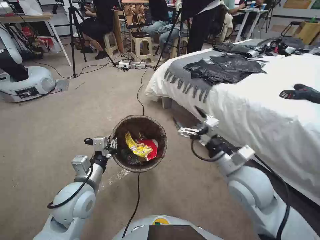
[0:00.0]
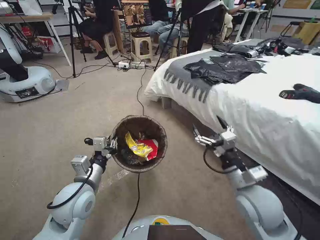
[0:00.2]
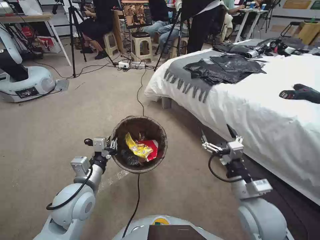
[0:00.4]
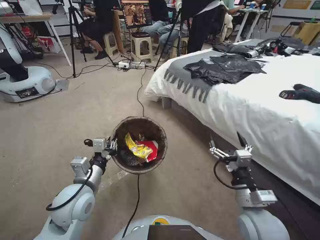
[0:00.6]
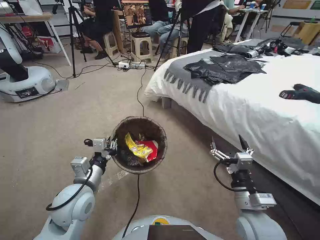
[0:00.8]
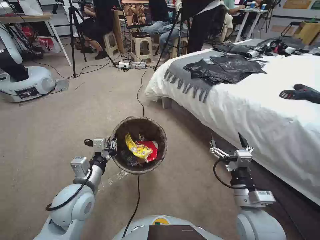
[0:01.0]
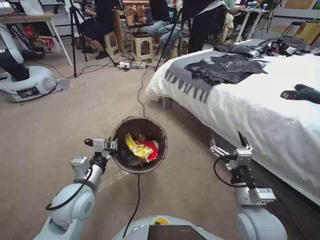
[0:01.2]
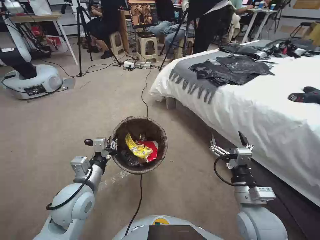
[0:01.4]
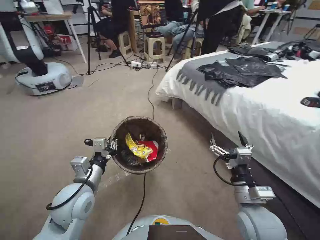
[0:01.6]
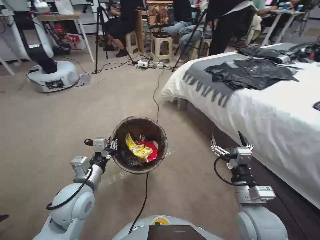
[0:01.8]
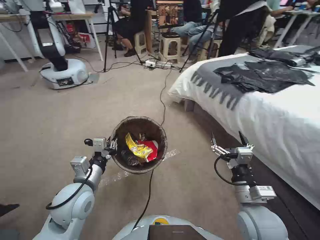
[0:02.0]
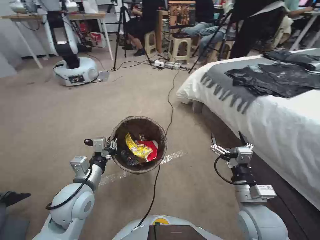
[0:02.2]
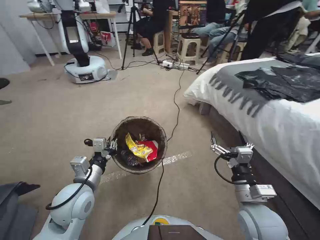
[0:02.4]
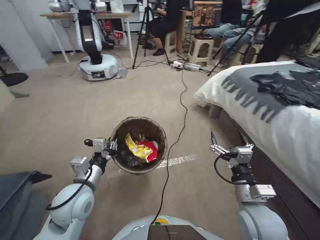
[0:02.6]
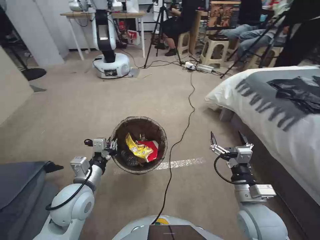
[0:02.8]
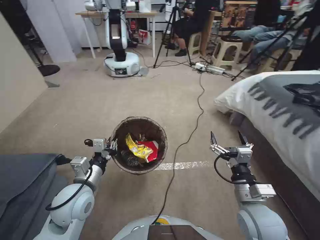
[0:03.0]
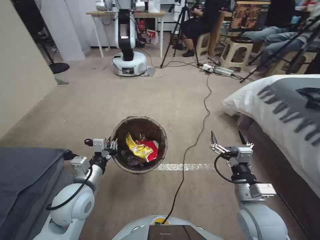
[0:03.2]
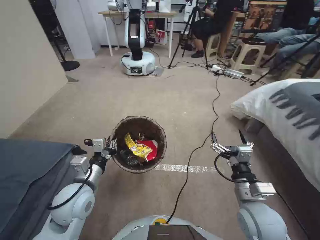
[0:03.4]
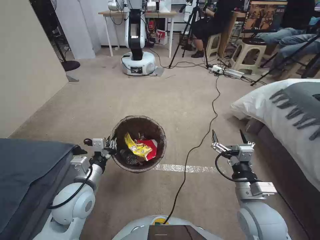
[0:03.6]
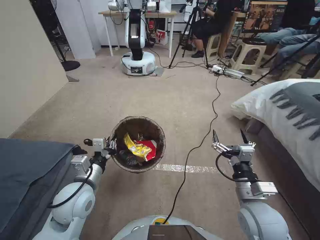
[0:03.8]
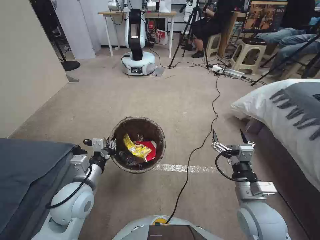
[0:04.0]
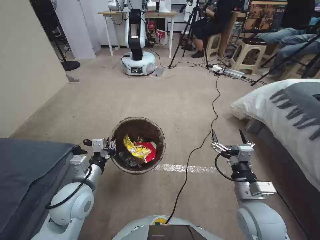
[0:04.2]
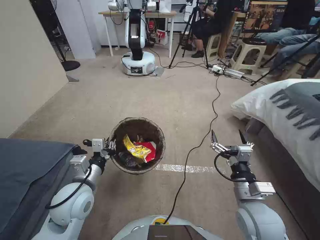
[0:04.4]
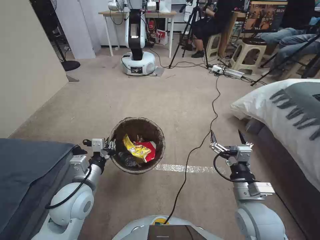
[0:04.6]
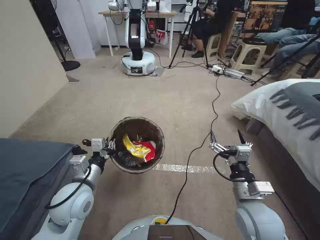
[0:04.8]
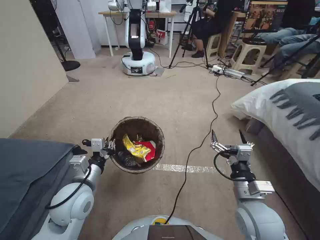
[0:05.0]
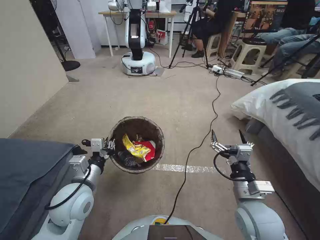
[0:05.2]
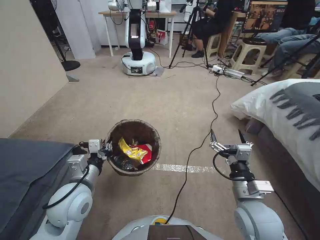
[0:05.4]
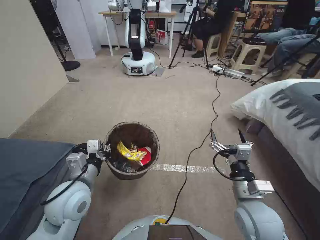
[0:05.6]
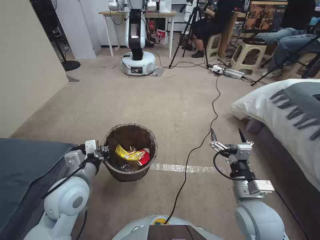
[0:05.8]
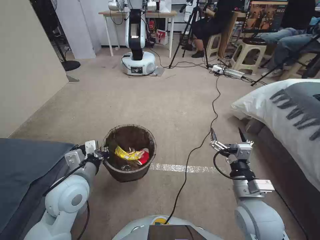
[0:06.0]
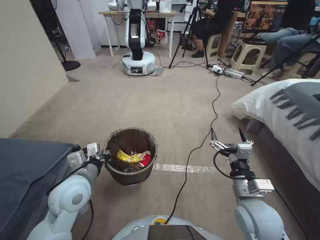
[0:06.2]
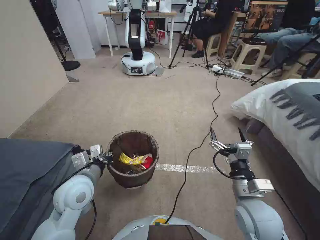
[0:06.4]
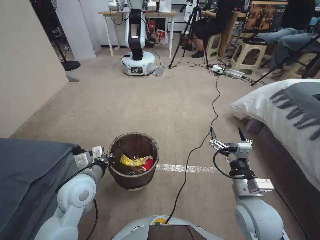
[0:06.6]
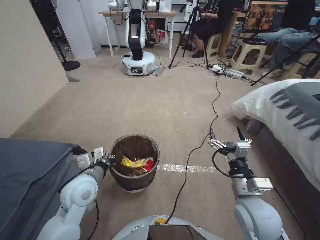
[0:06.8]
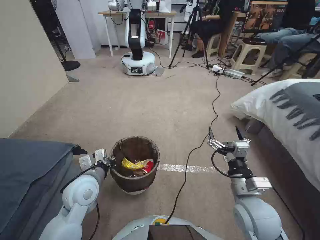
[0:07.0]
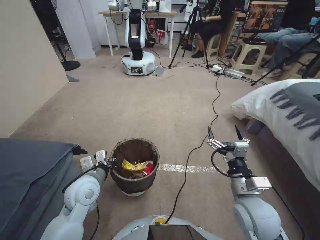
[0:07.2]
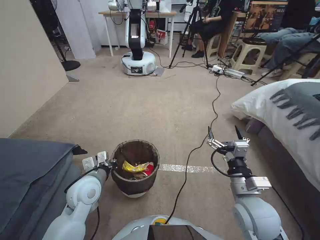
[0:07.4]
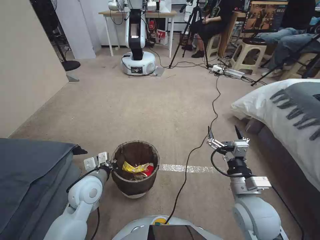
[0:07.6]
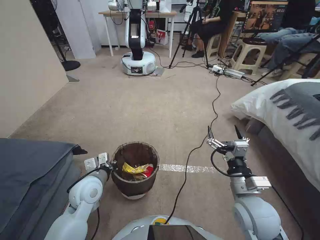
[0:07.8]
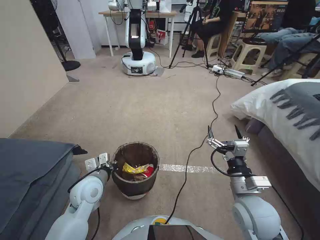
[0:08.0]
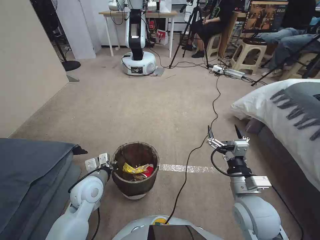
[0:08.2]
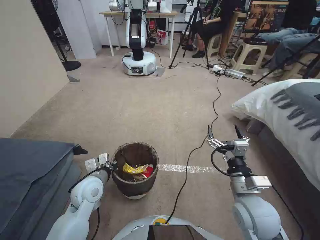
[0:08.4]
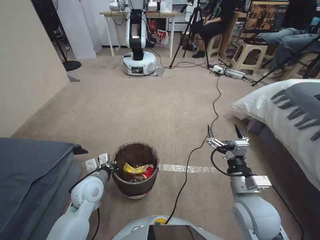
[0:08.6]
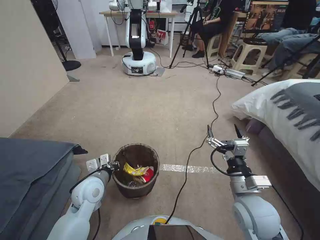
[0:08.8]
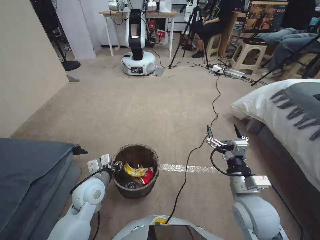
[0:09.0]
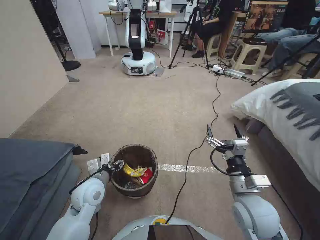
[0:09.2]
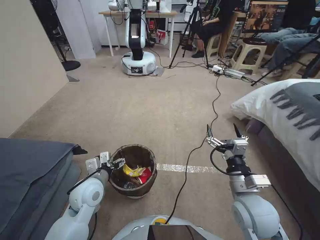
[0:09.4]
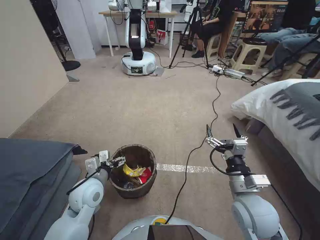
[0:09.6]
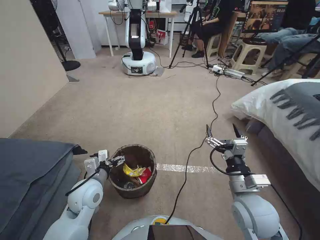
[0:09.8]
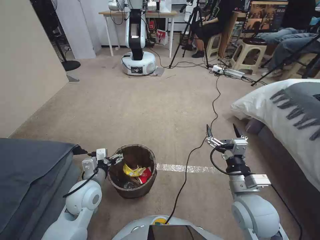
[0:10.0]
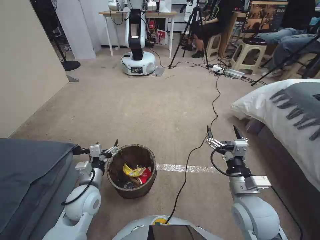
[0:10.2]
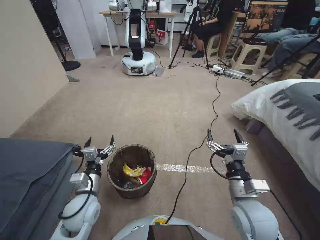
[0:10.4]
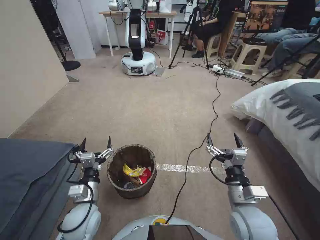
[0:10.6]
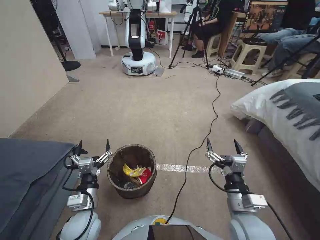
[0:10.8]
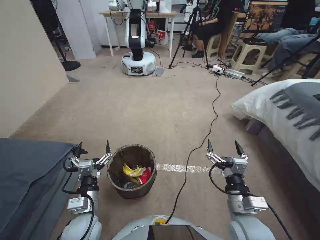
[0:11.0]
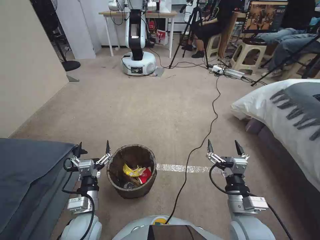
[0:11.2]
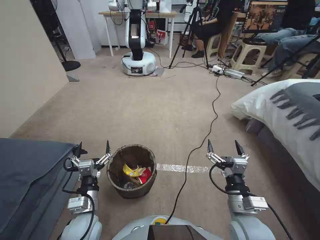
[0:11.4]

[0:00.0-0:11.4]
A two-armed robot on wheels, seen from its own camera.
Task of the whole recording: Pick up the trash bin, then pick up the garbage from the floor and place it into the trash bin.
0:00.0 to 0:01.4: The right gripper travels downward and backward by some 10 cm.
0:04.2 to 0:05.6: There are only small adjustments of the grippers.
0:05.6 to 0:07.2: The left gripper is displaced downward by about 5 cm.
0:07.2 to 0:08.6: There are only small adjustments of the grippers.
0:08.6 to 0:10.0: The left gripper opens its fingers.
0:10.0 to 0:11.4: The left gripper is displaced backward by about 10 cm. The right gripper ends up some 5 cm from where it was.

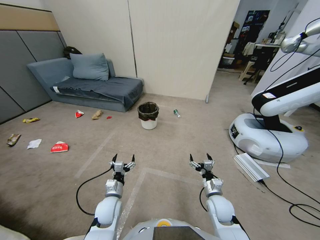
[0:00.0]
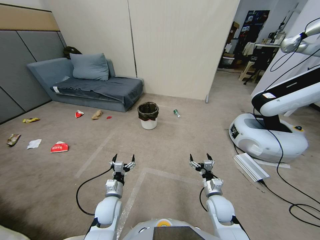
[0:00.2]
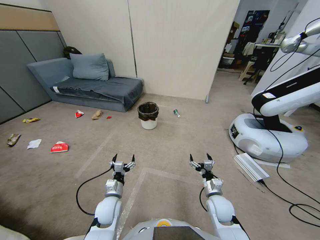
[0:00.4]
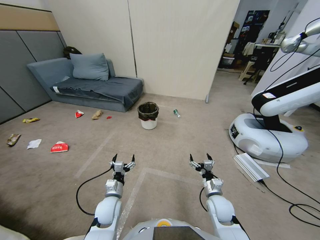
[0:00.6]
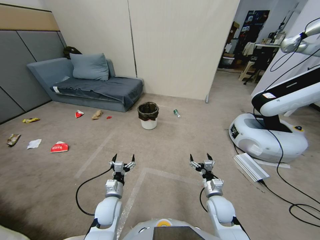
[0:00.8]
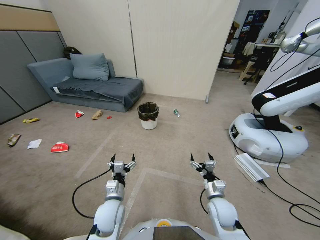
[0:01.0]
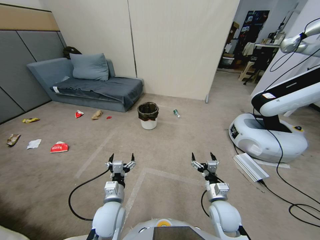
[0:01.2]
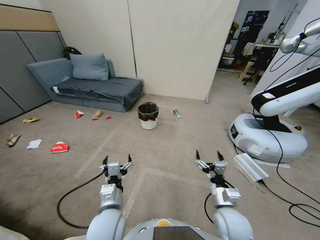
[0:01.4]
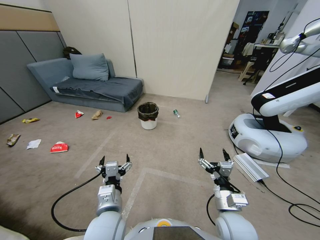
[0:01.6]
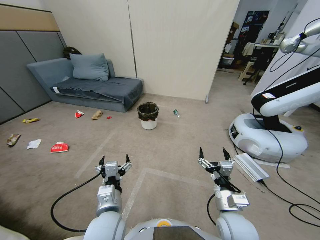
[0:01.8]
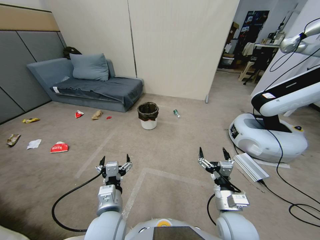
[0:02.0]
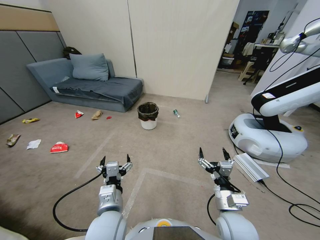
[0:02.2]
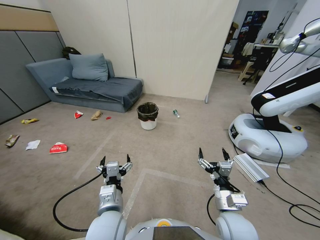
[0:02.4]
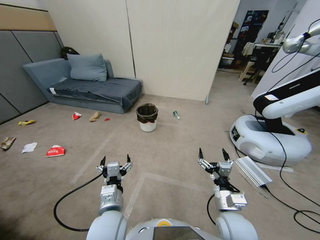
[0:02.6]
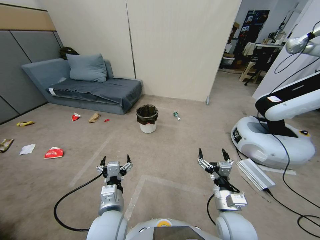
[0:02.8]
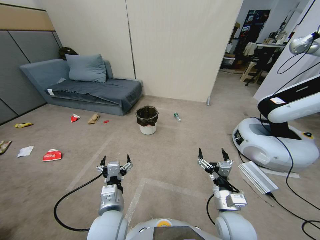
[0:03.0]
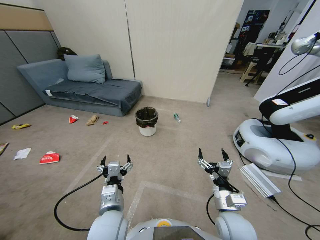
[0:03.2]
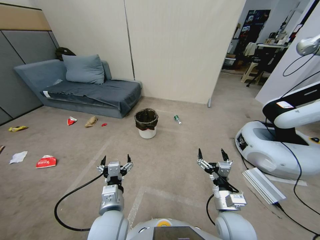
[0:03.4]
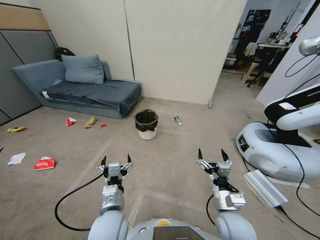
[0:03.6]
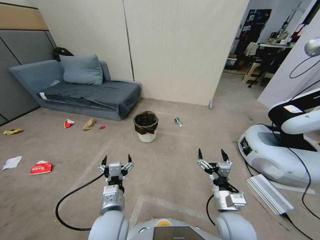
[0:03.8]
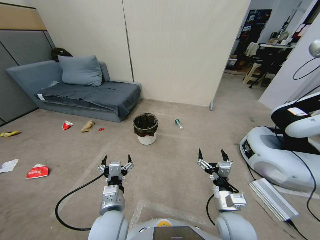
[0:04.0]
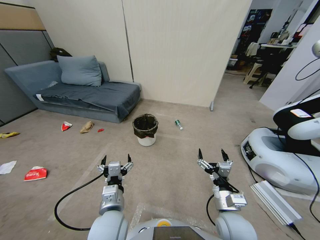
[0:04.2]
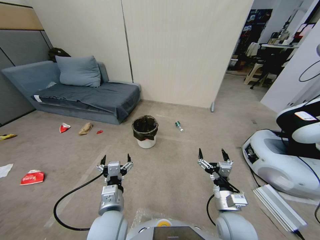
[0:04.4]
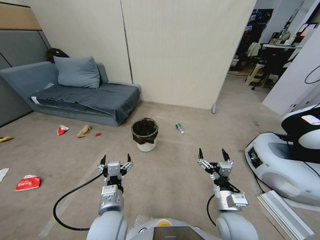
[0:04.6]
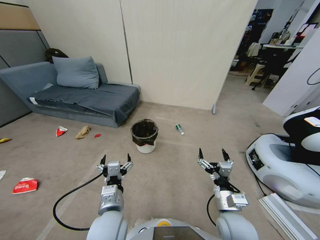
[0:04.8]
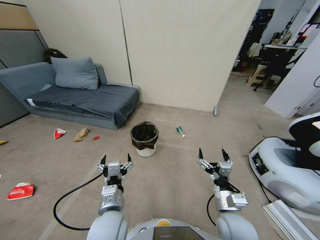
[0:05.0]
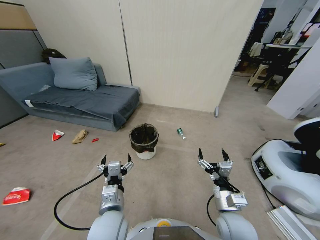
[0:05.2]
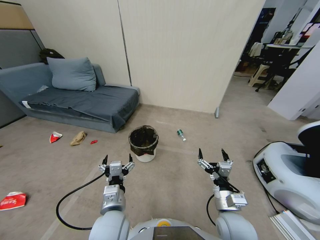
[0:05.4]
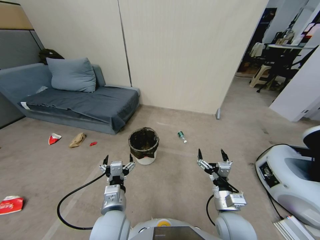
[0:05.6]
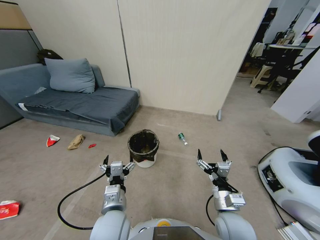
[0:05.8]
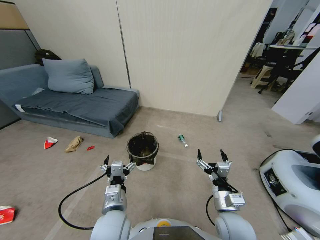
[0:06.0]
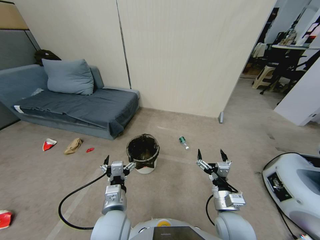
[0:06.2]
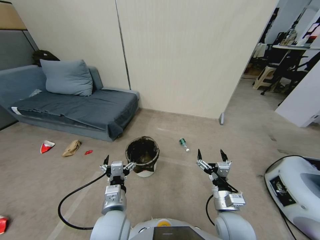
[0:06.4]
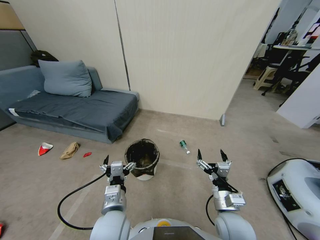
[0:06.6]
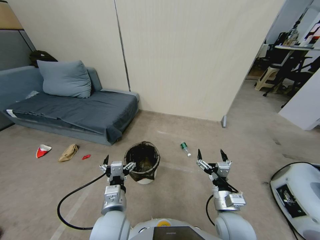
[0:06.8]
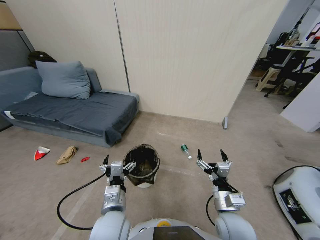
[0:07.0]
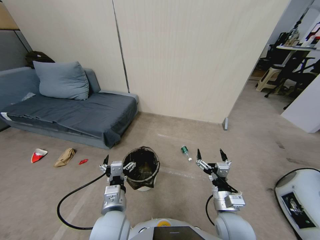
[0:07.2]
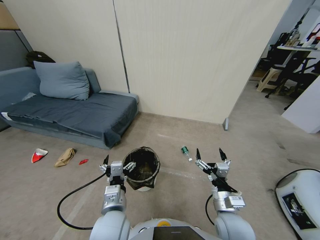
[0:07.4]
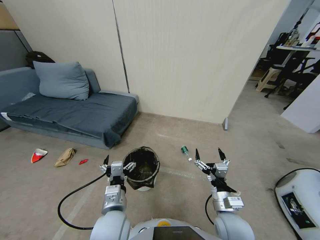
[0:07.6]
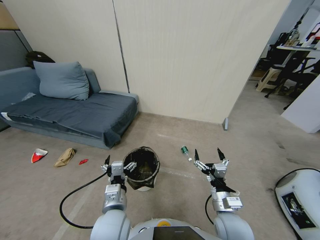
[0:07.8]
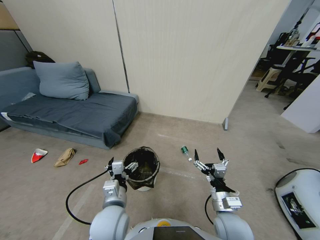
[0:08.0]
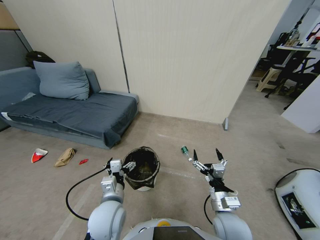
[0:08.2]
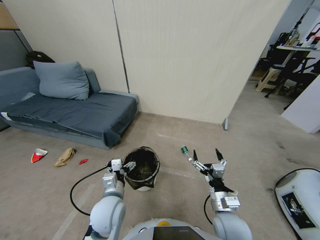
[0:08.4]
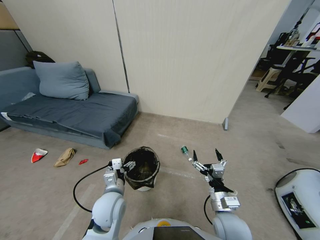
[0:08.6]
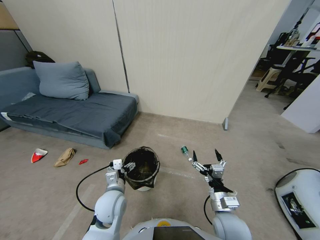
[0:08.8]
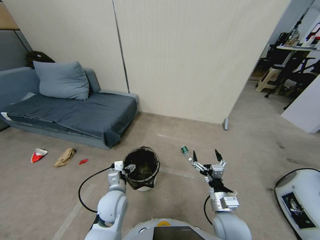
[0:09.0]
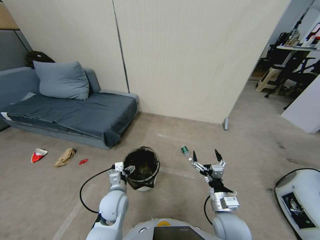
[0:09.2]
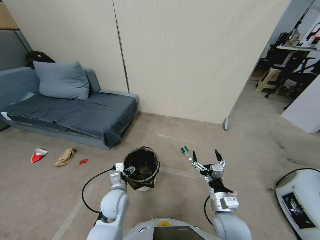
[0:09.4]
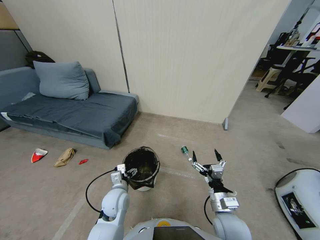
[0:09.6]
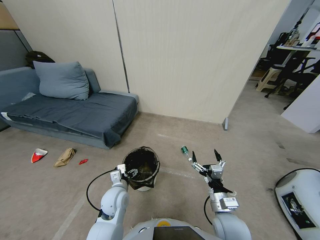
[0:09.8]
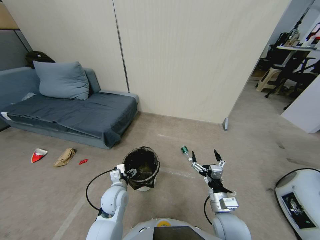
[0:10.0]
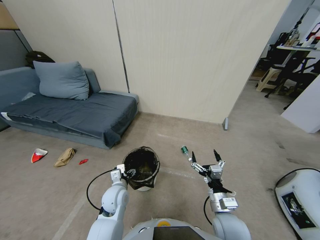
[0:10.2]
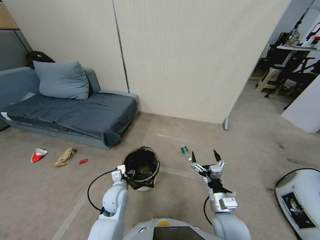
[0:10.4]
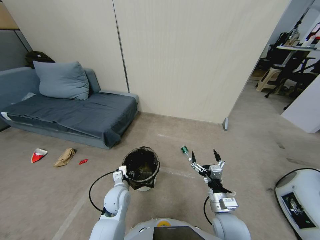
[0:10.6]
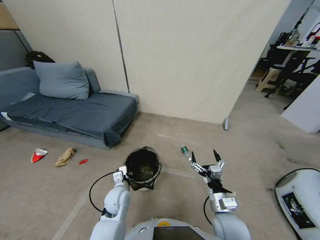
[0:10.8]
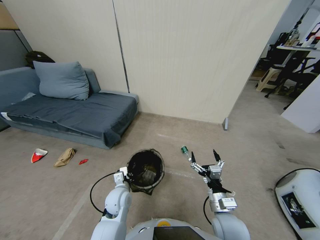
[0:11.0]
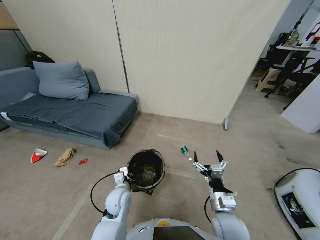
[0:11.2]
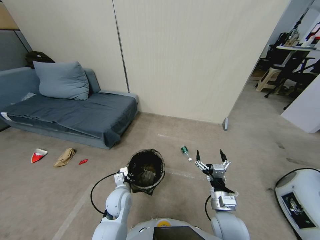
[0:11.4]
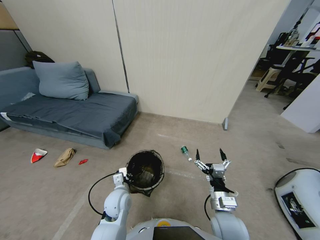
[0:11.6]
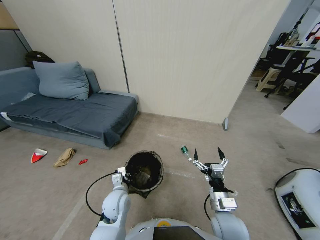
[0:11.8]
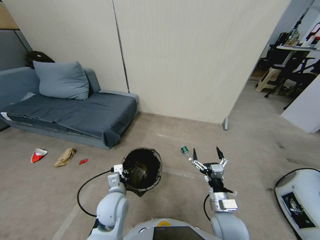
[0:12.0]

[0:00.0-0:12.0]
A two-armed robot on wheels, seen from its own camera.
Task of the whole recording: Pick up the trash bin, then pick up the garbage from the floor and place it into the trash bin.
0:07.6 to 0:09.0: The left gripper heads forward and downward, covering some 10 cm.
0:09.0 to 0:10.4: The left gripper closes its fingers.
0:10.4 to 0:12.0: The left gripper shifts about 10 cm upward and backward, and closes.
